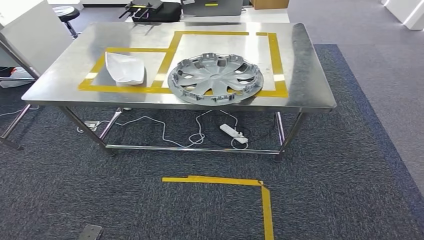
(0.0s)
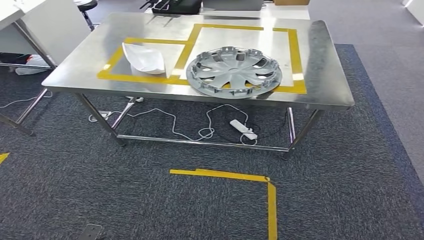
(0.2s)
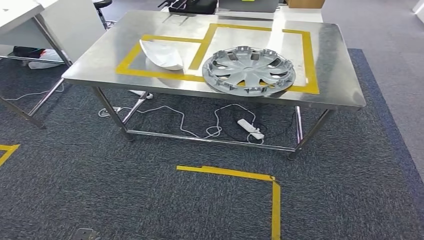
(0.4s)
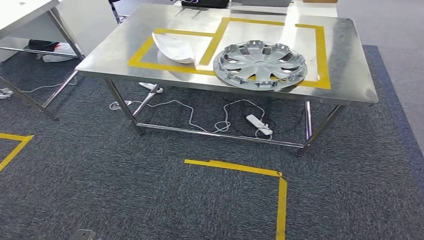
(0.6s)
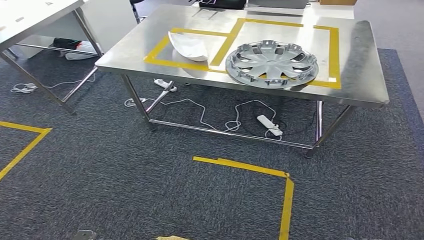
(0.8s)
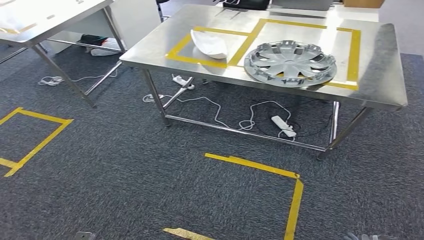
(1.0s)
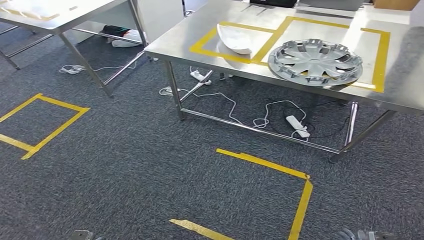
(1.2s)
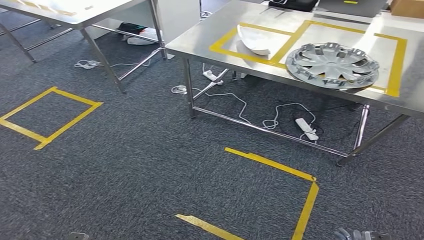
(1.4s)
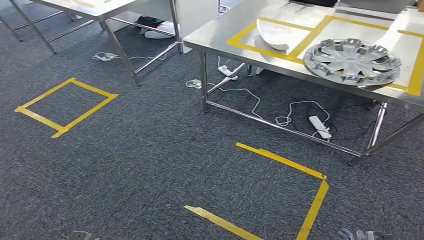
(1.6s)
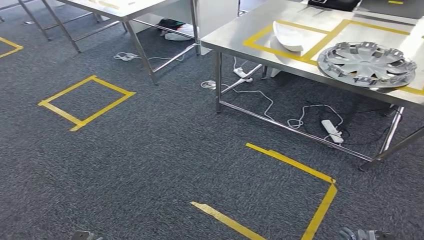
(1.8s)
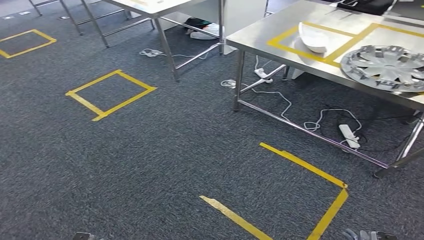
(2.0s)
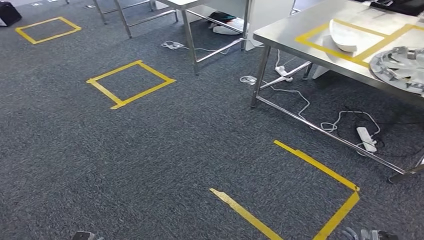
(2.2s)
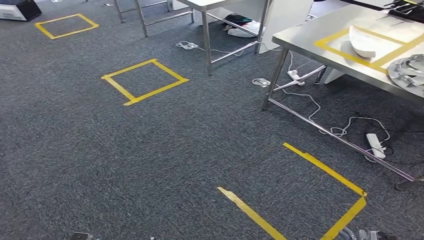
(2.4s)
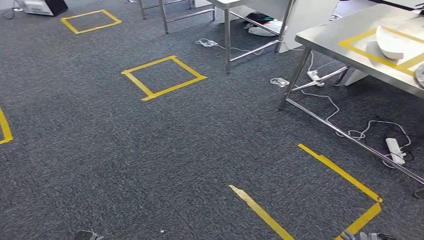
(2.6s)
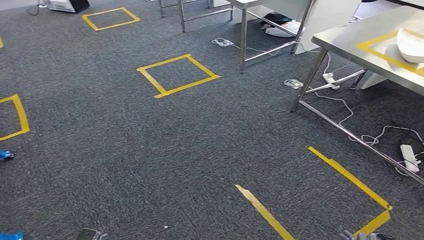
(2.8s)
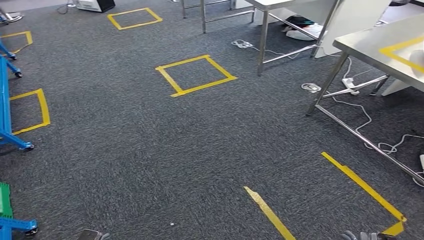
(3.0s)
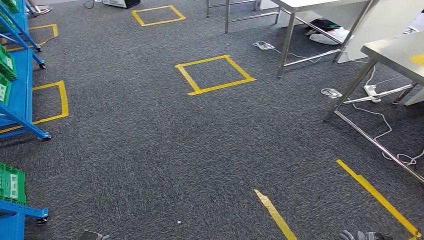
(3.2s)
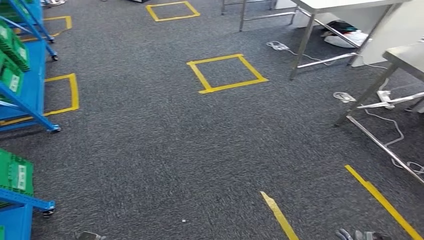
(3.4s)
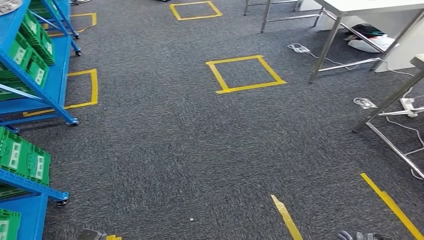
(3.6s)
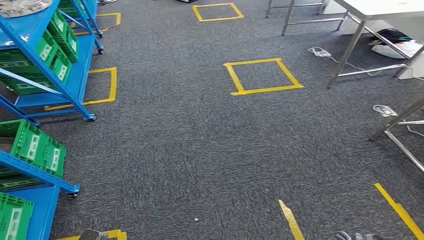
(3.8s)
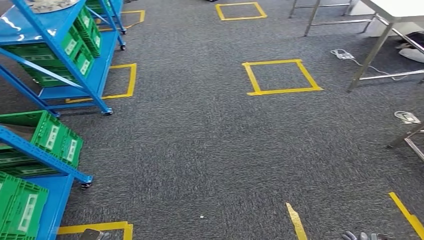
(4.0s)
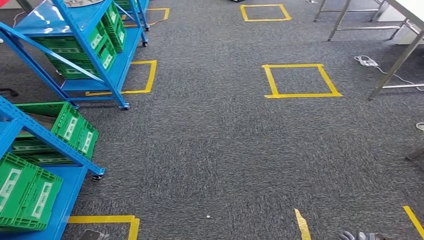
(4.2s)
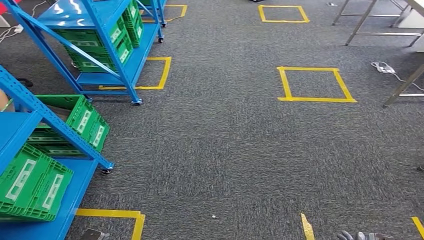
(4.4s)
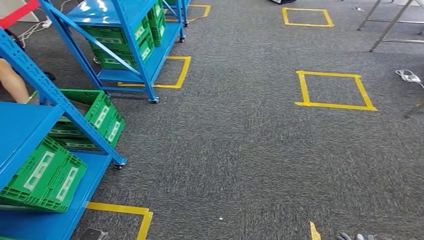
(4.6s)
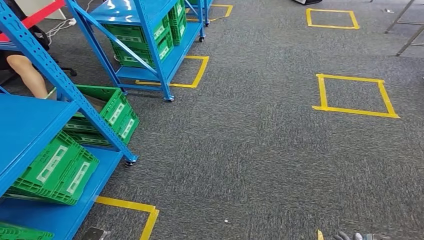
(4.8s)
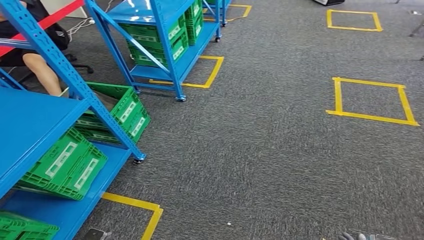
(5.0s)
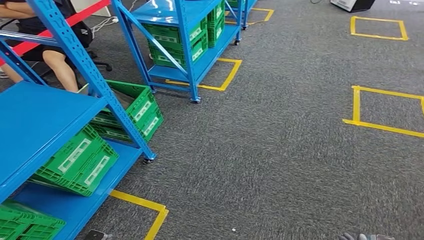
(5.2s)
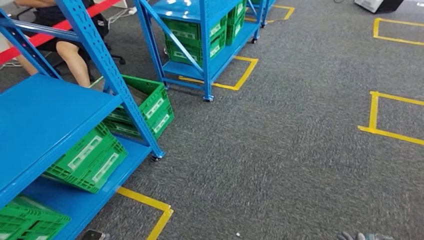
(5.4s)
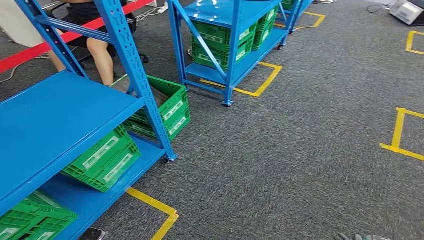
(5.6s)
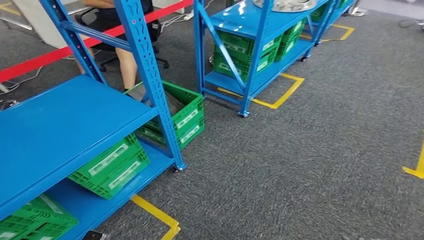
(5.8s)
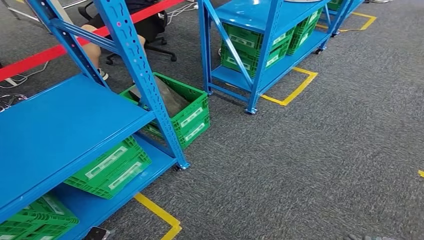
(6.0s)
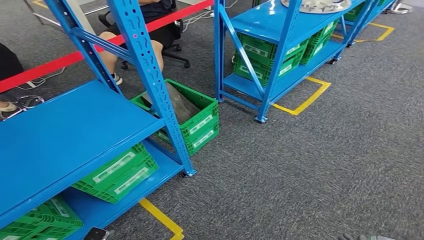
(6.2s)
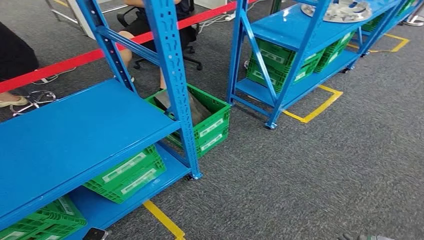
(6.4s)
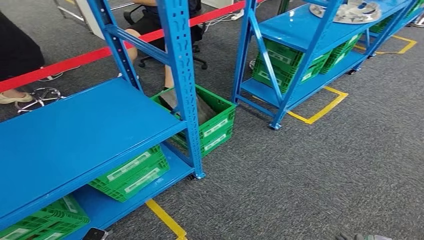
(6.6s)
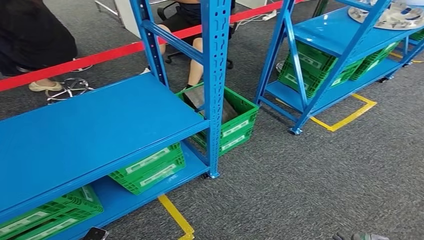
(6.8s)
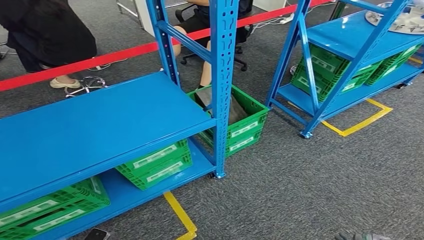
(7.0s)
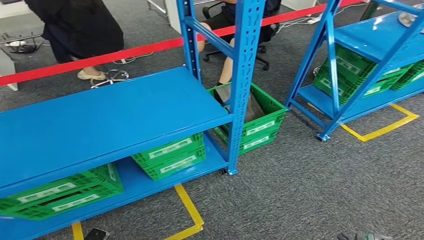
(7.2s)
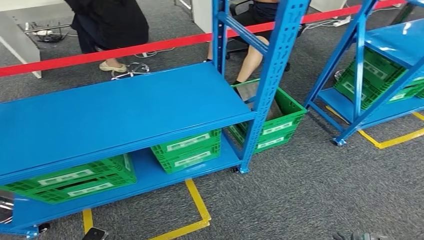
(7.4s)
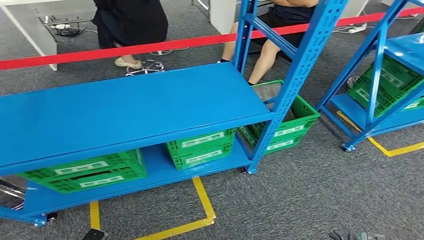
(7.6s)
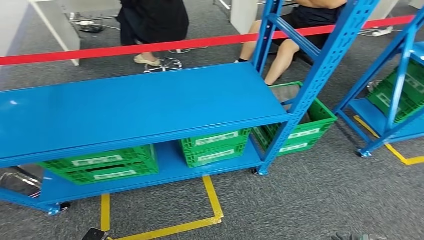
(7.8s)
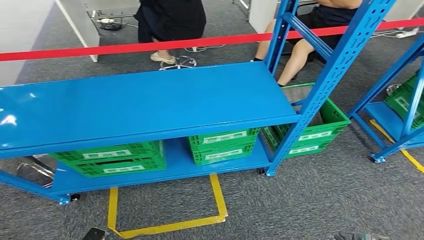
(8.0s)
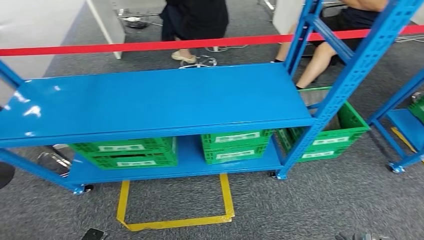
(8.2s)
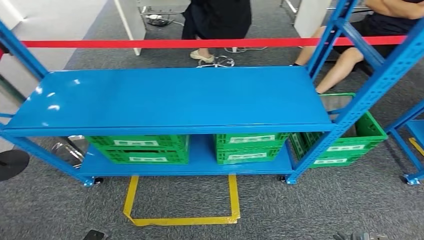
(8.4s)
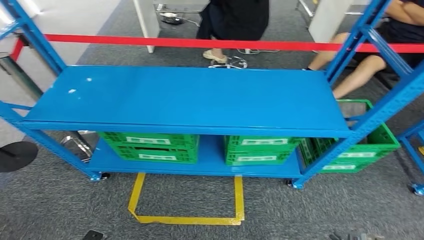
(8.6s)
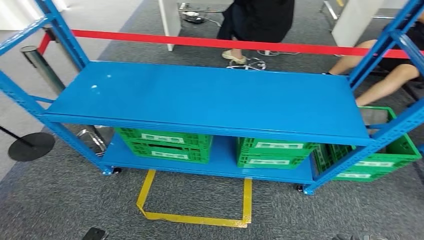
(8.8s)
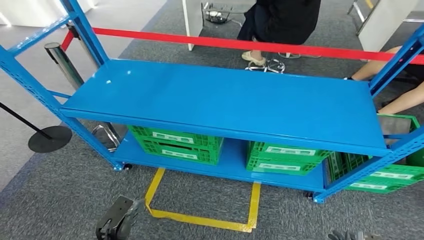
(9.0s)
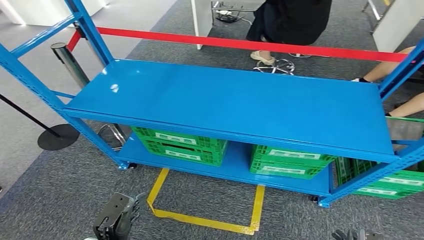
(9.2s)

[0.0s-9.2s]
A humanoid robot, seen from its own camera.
Step, 0.0s to 9.2s: Move to the initial position at the workbench.
